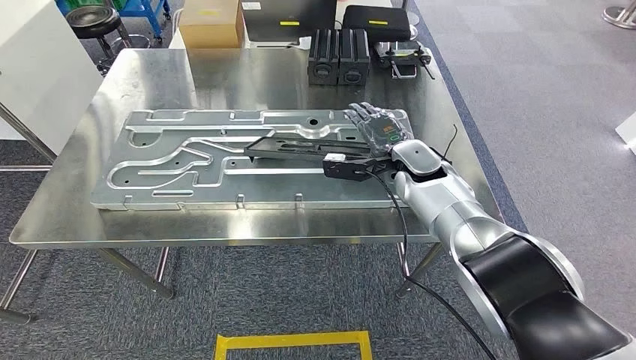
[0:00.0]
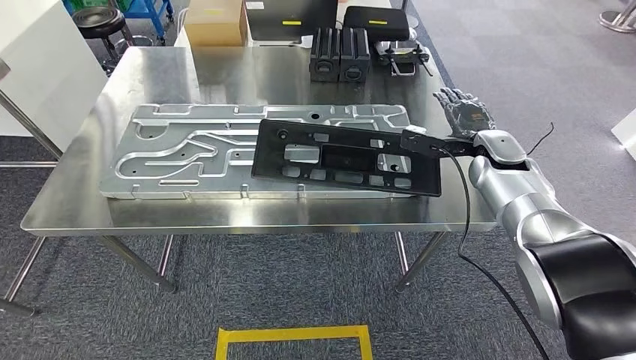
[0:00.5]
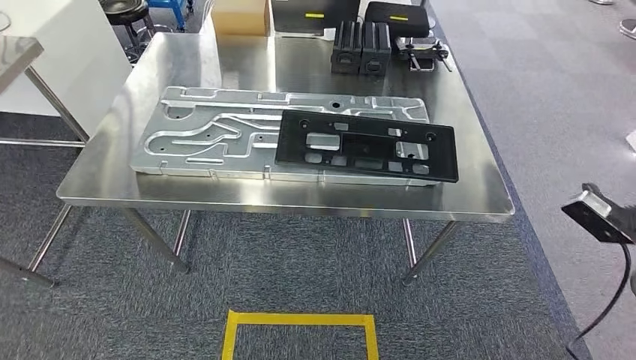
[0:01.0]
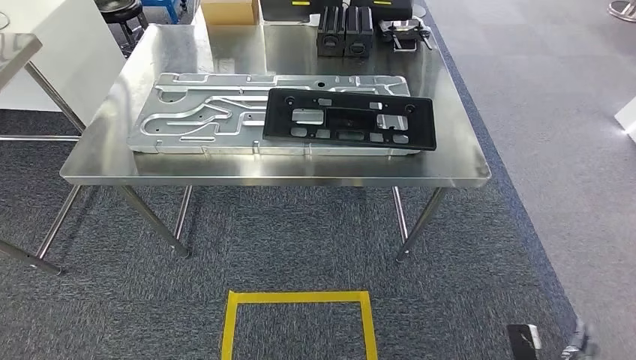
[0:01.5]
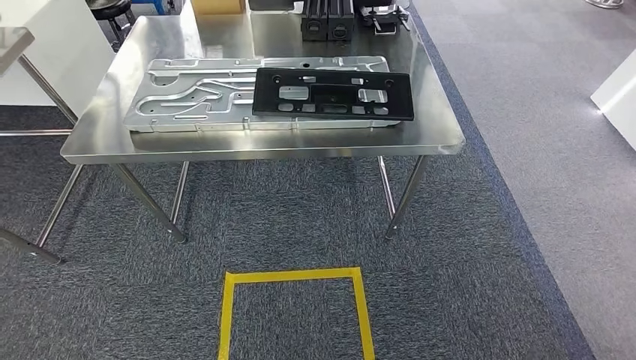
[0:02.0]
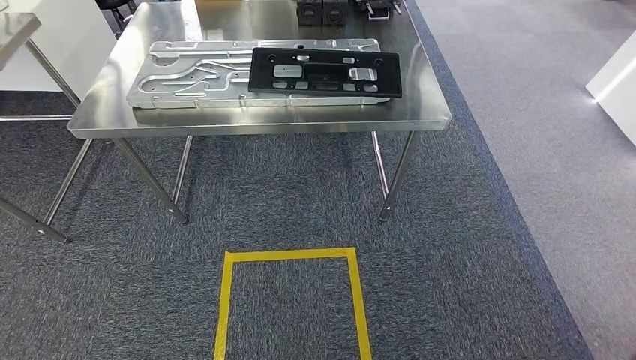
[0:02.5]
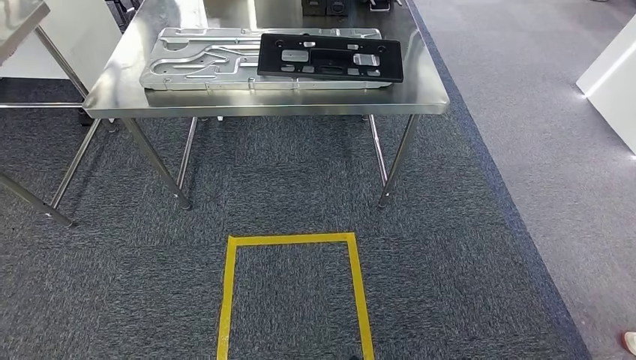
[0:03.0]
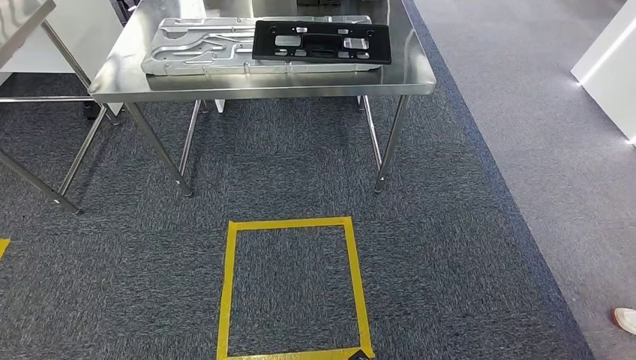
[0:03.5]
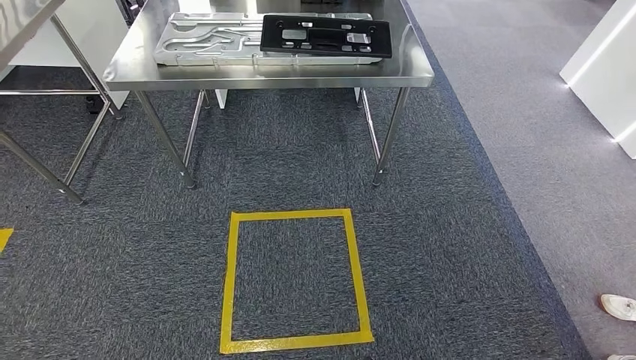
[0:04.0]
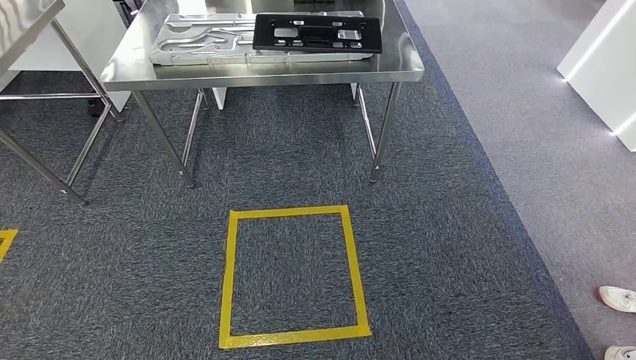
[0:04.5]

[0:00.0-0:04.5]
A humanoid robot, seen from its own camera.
Step, 0:01.5 to 0:04.5: Move to the initial position of the shelf.

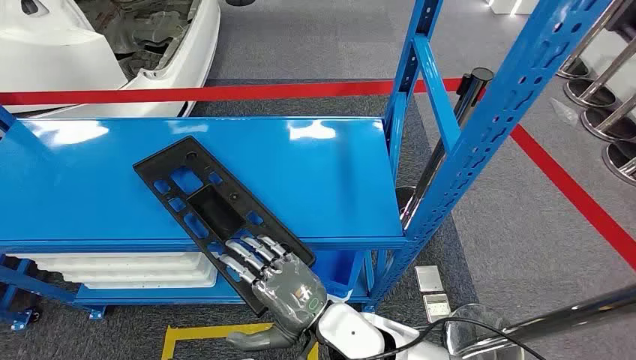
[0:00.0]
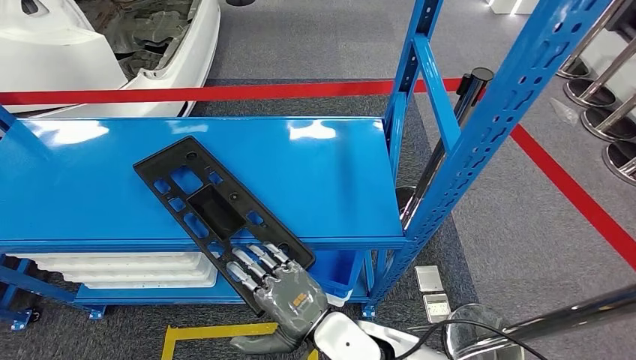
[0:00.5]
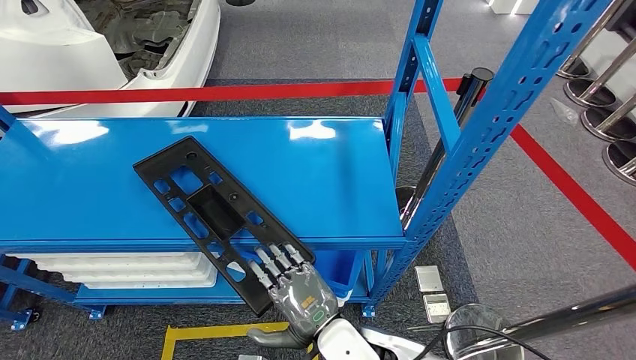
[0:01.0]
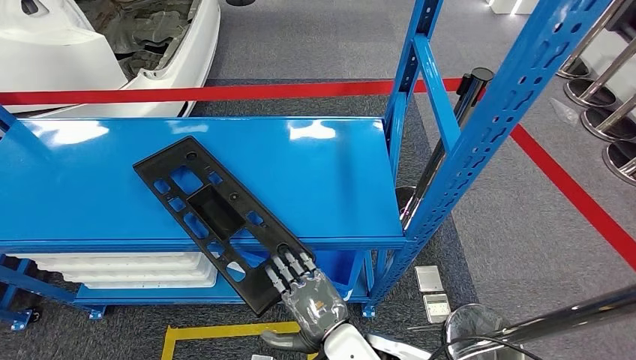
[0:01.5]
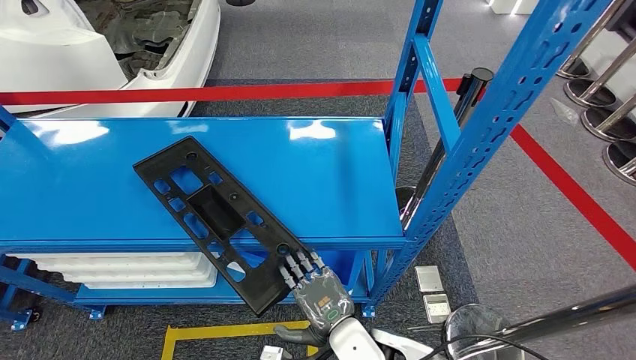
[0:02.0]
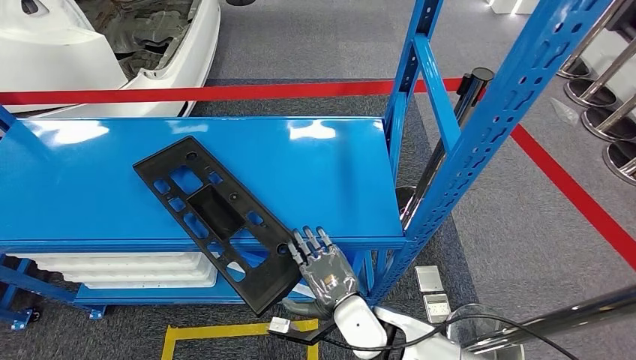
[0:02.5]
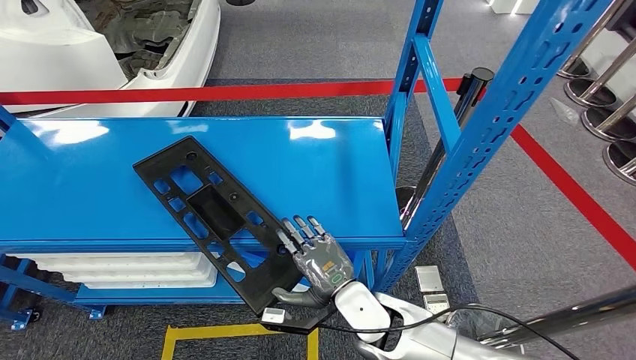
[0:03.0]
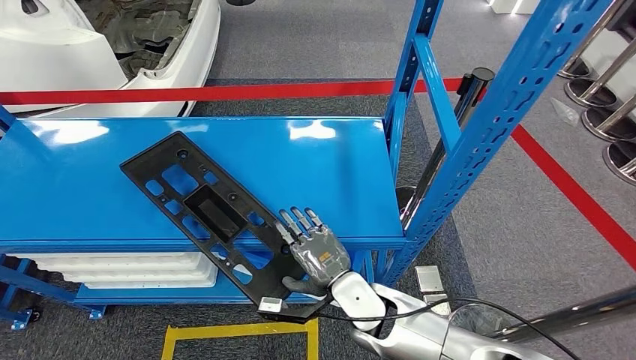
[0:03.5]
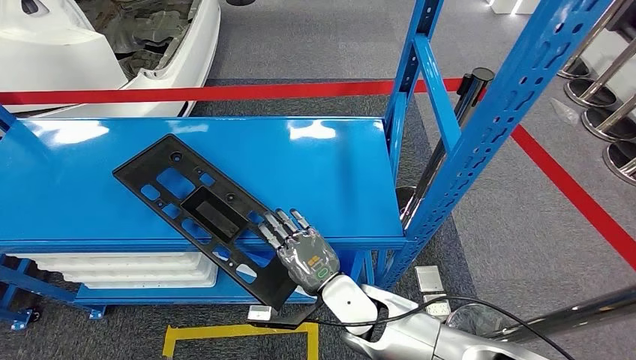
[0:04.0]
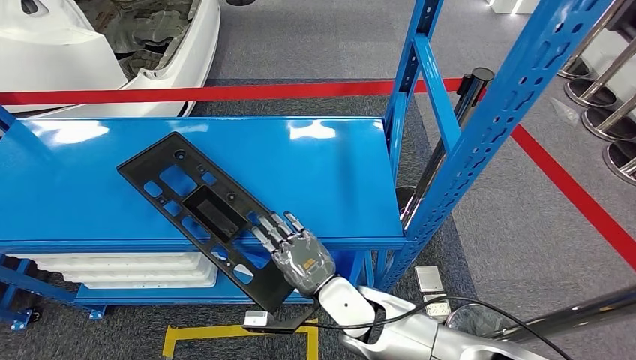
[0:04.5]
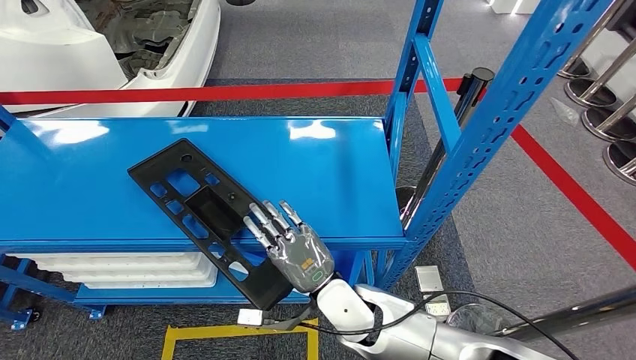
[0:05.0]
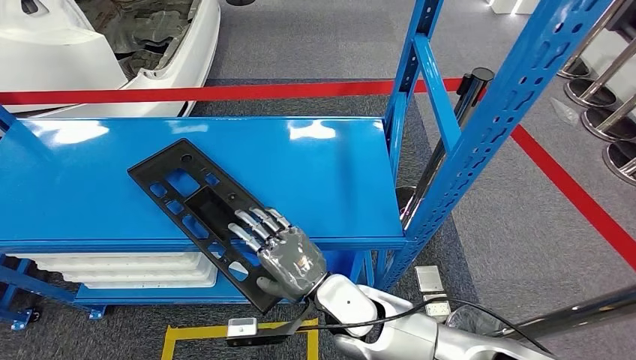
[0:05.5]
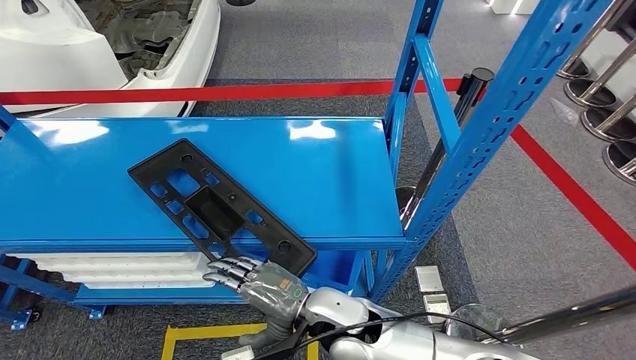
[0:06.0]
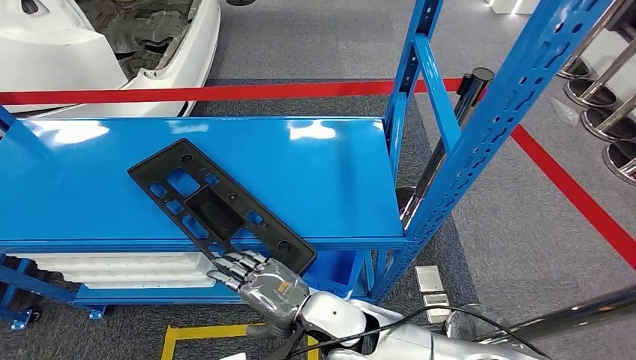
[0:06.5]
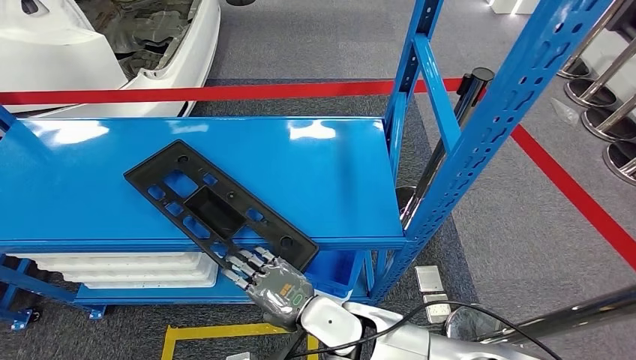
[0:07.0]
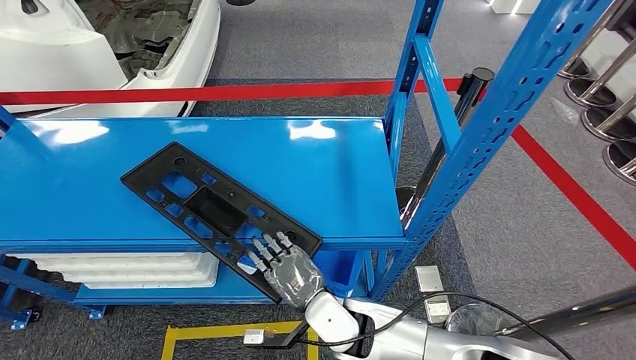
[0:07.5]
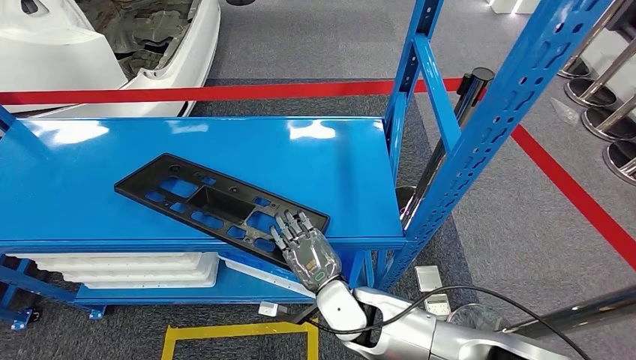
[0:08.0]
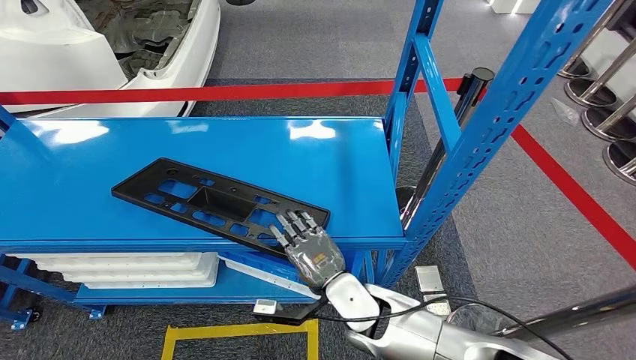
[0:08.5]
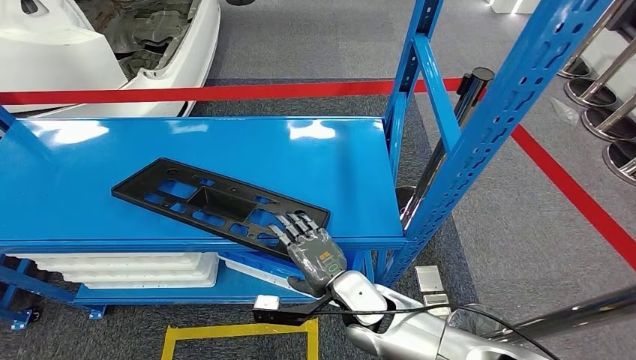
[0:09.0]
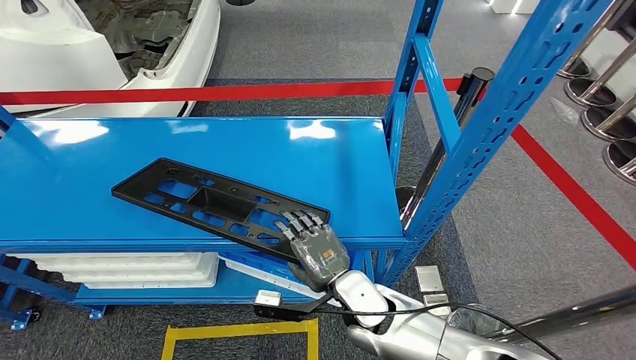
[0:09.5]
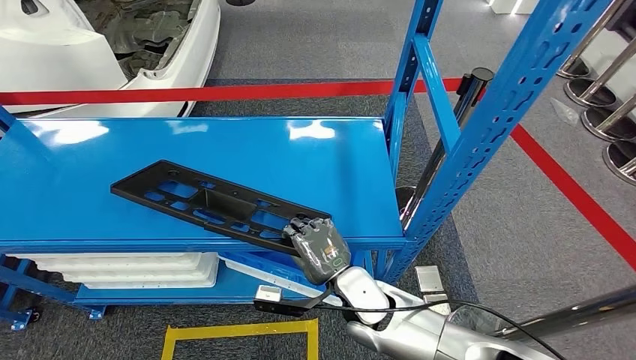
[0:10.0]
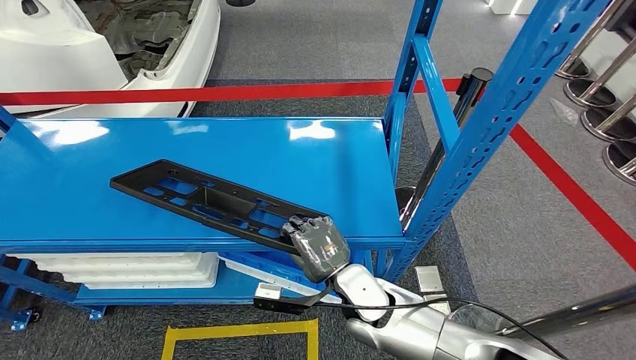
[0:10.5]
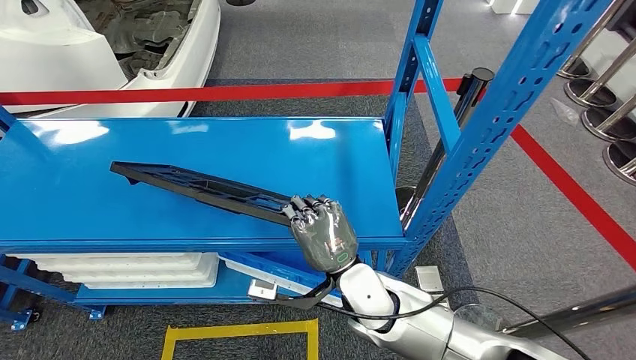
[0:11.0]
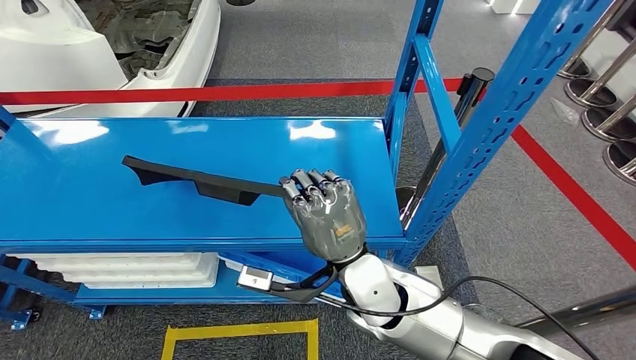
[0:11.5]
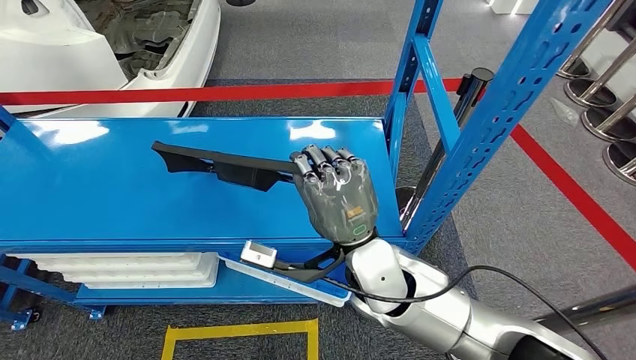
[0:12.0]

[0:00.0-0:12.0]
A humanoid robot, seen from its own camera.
0:02.0 to 0:04.0: The right hand shifts roughly 5 cm forward.
0:04.0 to 0:06.0: The right hand moves approximately 5 cm.
0:06.0 to 0:08.0: The right hand ends up about 5 cm from where it was.
0:10.0 to 0:12.0: The right hand is displaced upward by some 15 cm.

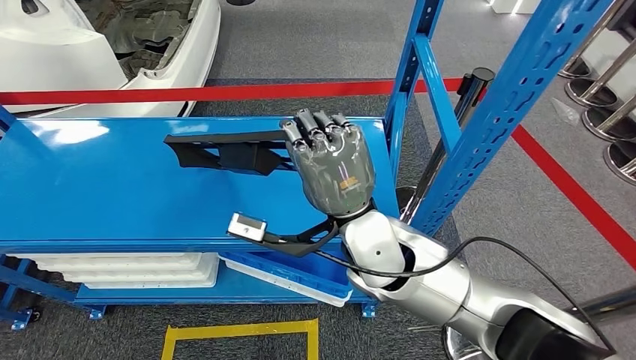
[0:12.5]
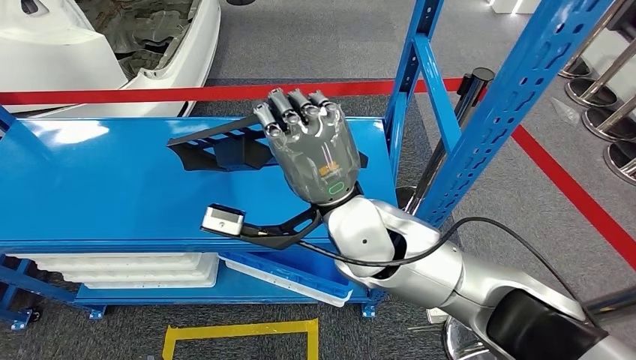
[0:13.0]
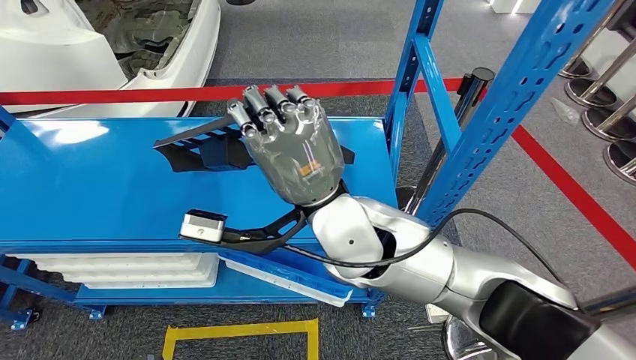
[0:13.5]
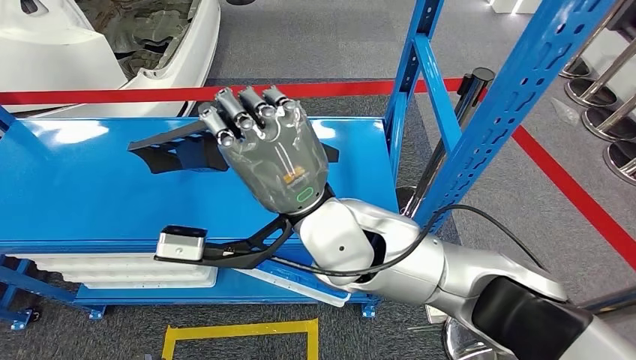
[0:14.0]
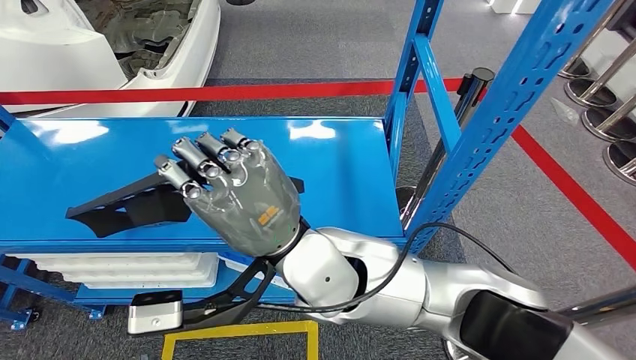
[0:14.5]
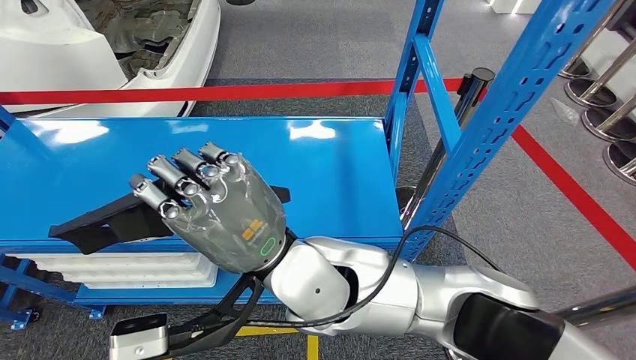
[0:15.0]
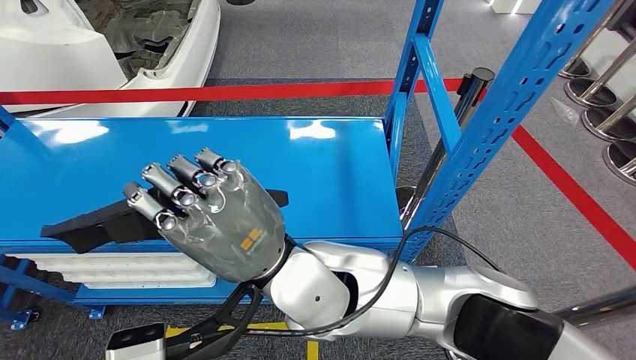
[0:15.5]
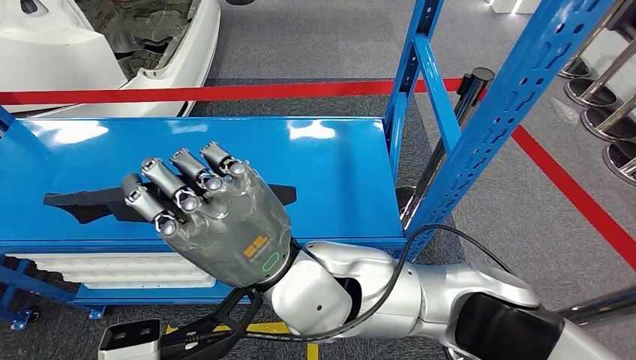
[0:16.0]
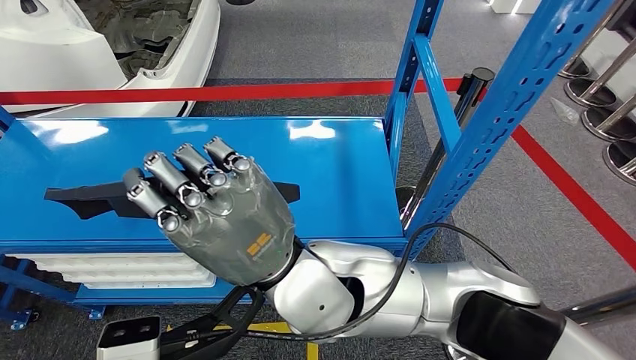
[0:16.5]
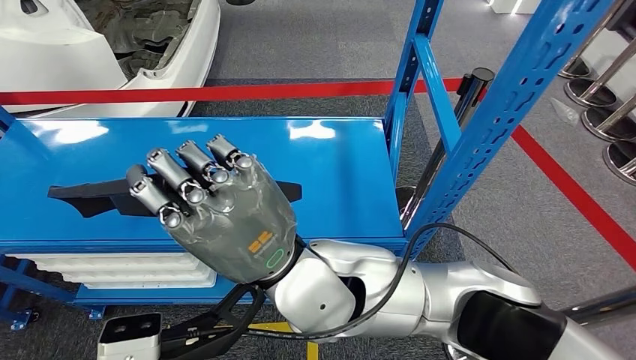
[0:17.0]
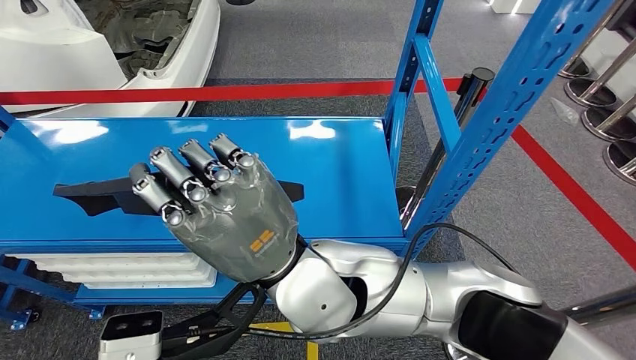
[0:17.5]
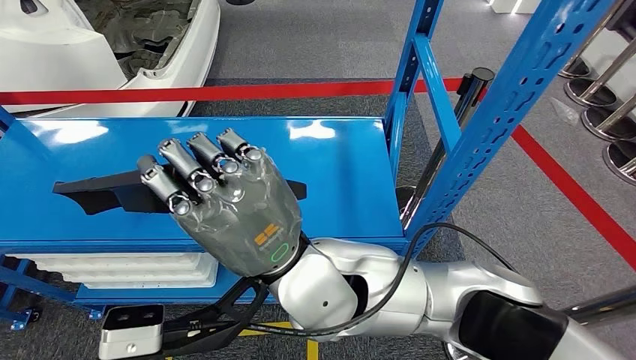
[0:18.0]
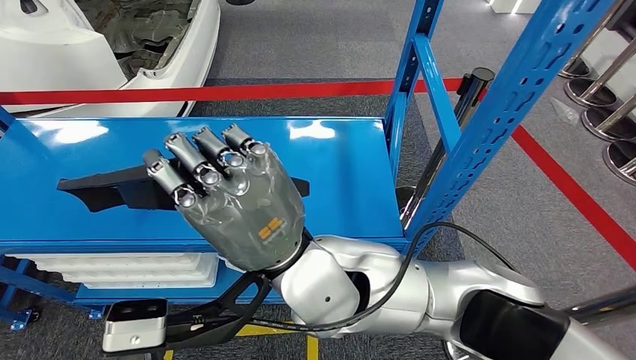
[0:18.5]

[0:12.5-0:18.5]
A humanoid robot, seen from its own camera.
0:14.5 to 0:16.5: The hands stay close to where they were, moving slightly.
0:16.5 to 0:18.5: Both hands stay about where they are.
